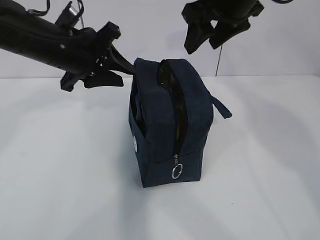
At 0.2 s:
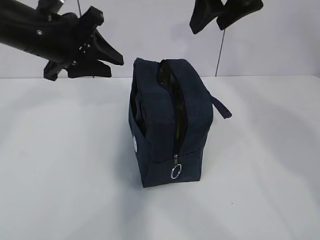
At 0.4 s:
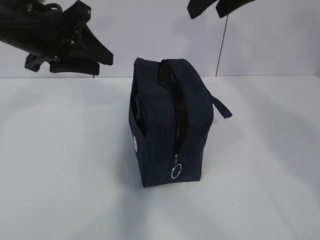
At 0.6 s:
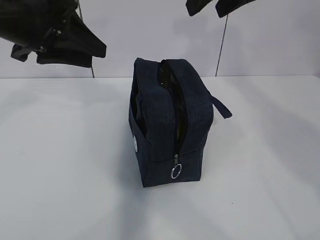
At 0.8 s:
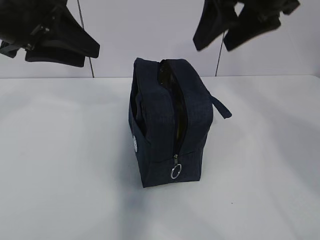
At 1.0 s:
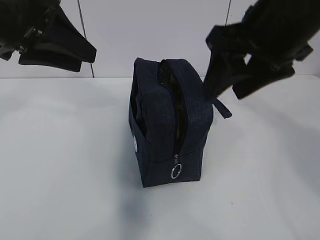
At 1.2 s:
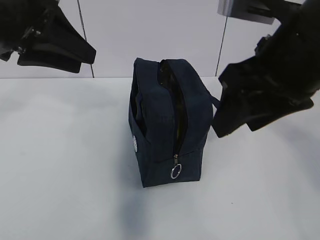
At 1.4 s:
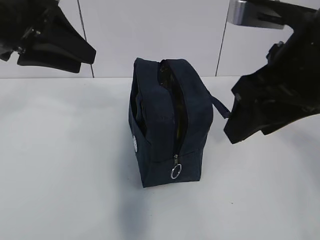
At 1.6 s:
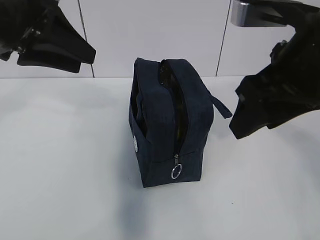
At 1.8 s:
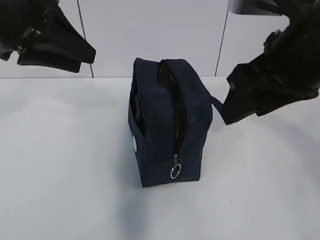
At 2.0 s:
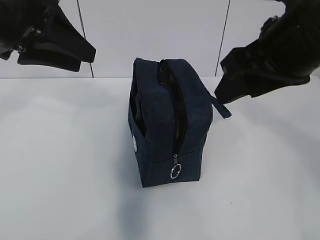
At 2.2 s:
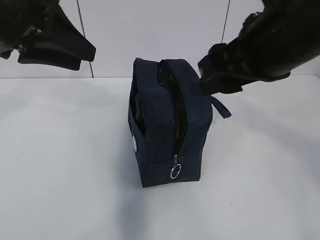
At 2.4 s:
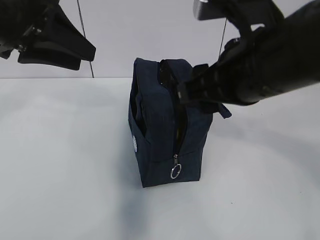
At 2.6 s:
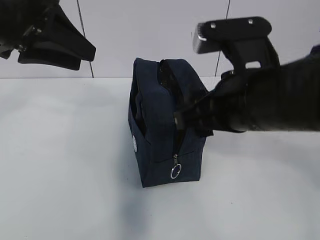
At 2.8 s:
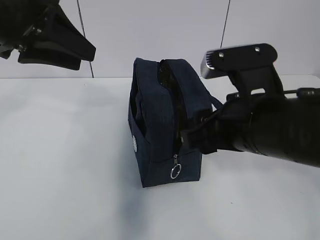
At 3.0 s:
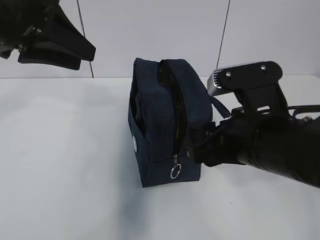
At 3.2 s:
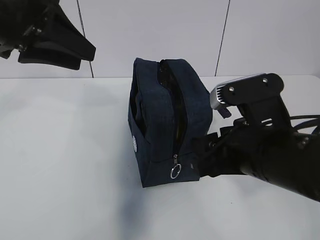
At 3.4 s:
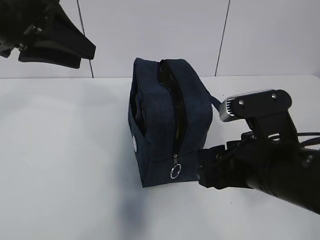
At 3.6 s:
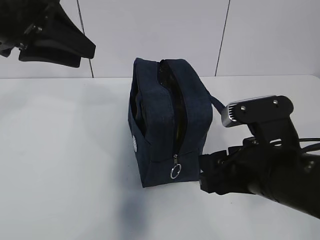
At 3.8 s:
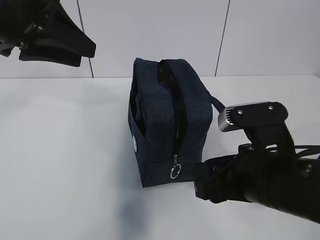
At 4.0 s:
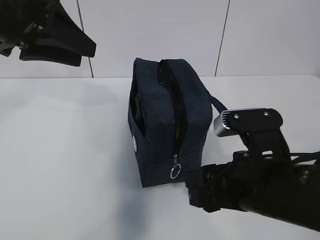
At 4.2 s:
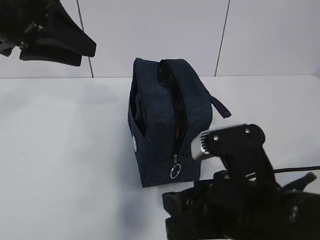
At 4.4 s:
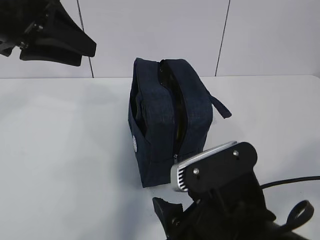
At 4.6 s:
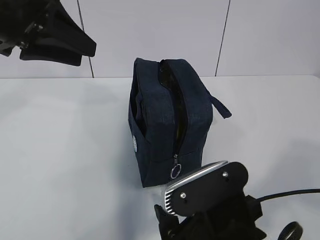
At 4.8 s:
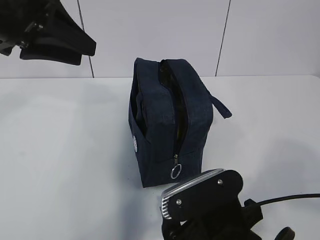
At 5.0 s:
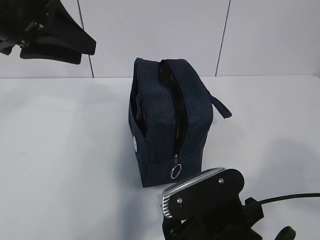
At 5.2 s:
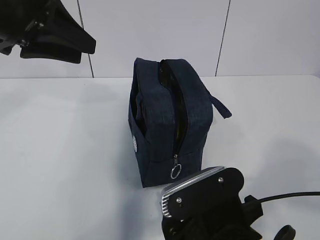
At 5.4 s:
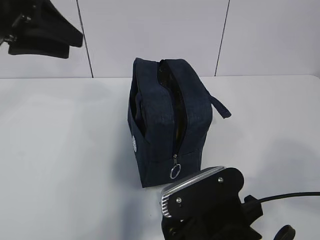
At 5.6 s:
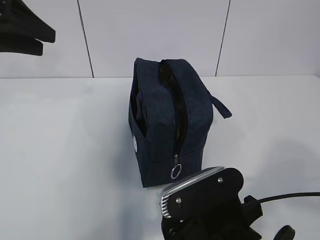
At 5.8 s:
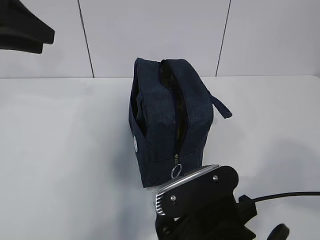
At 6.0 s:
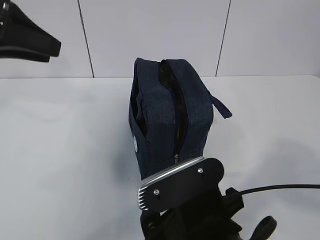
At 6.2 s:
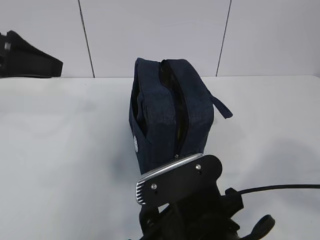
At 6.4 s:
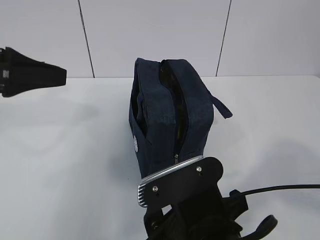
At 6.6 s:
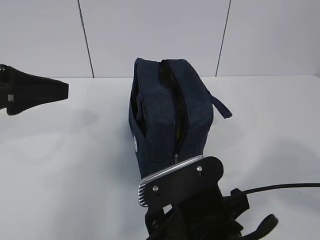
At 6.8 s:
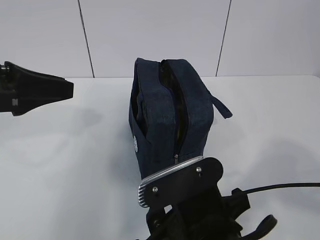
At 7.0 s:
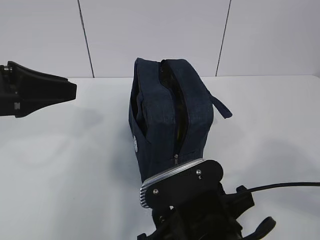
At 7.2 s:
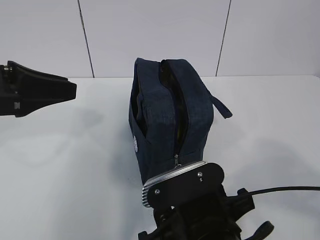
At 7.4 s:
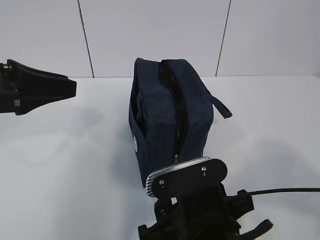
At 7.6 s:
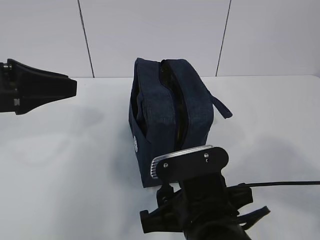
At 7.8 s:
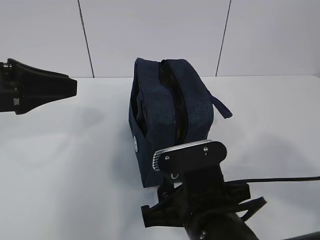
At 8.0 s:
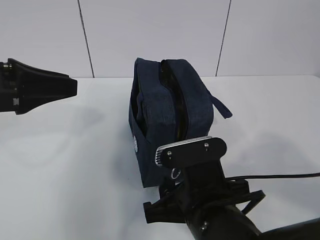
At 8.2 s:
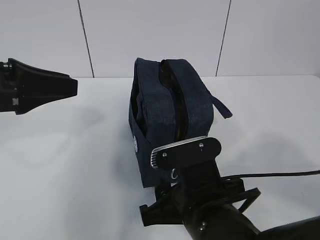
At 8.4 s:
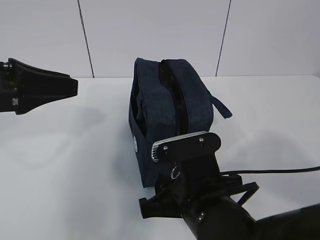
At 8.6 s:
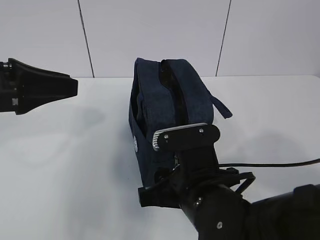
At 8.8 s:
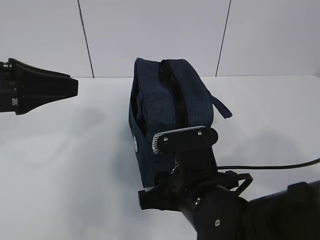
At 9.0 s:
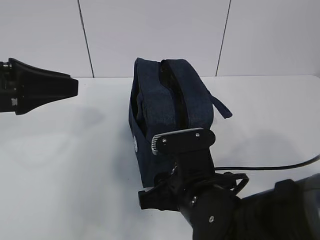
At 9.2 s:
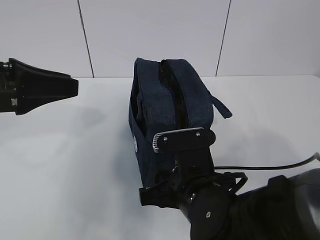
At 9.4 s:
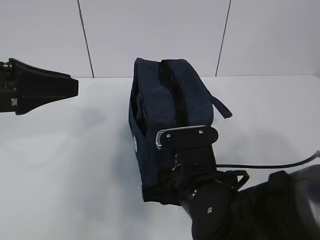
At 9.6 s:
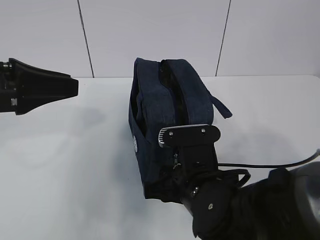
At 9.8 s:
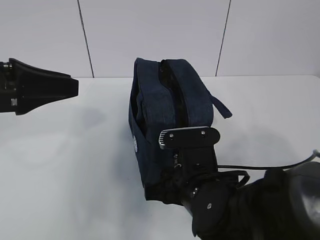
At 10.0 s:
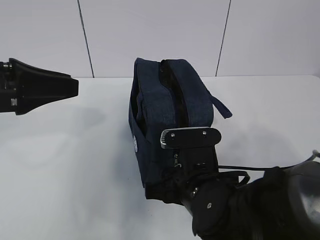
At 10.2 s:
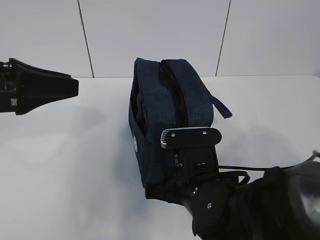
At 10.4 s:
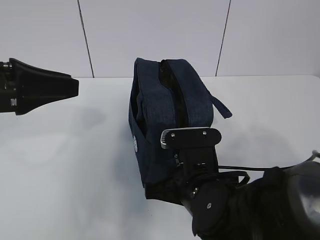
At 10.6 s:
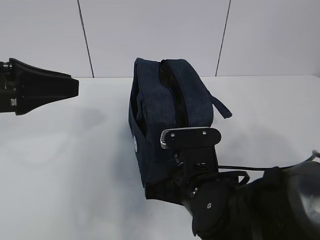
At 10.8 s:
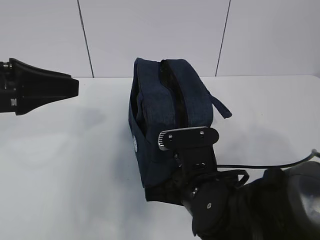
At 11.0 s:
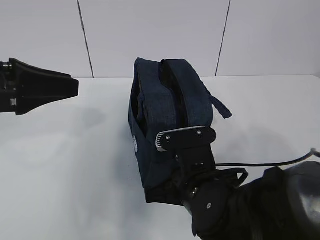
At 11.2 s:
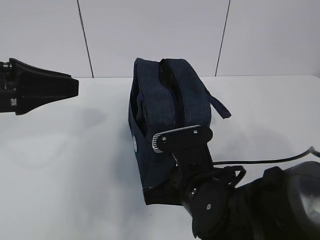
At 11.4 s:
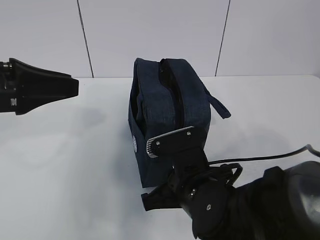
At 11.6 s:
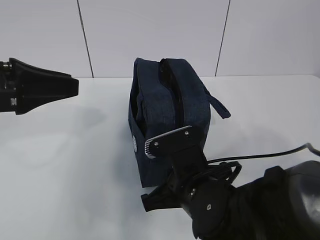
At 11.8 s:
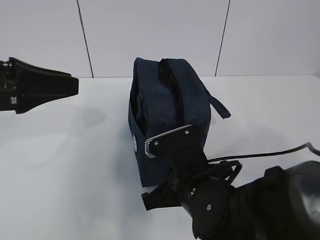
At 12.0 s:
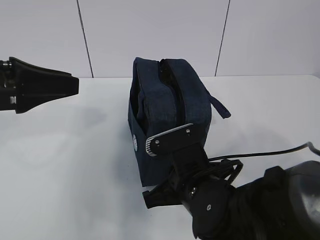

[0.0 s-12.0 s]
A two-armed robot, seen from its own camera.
0.0 to 1.6 s: The left gripper shifts about 10 cm upward and backward; the right gripper moves backward, some 15 cm.
1.6 to 3.0 s: The right gripper moves downward, roughly 10 cm.
3.0 to 4.4 s: The right gripper goes roughly 10 cm backward.
4.4 to 6.0 s: The left gripper heads to the left, covering roughly 5 cm.
6.0 to 7.6 s: The left gripper travels downward and backward by approximately 10 cm.
7.6 to 9.0 s: The right gripper moves about 5 cm.
9.0 to 10.4 s: The grippers make only small movements.
10.4 to 12.0 s: The right gripper closes its fingers.

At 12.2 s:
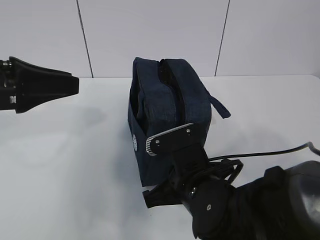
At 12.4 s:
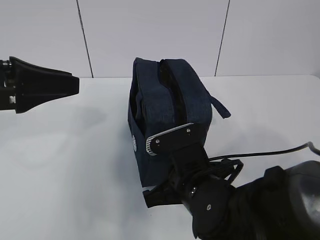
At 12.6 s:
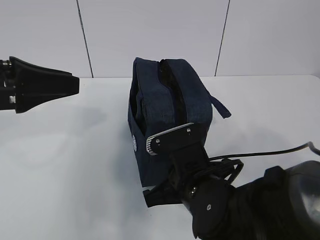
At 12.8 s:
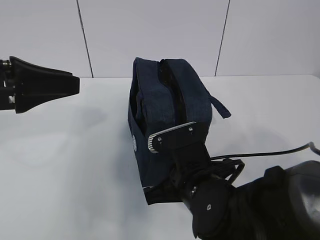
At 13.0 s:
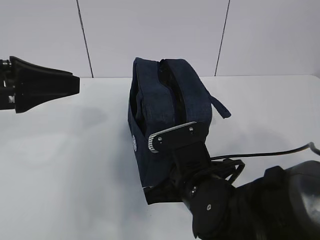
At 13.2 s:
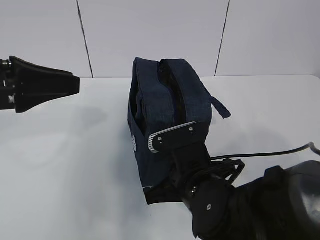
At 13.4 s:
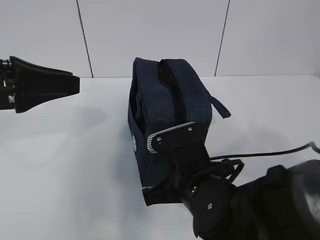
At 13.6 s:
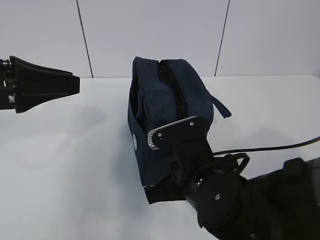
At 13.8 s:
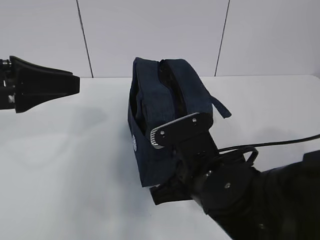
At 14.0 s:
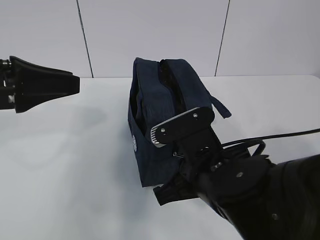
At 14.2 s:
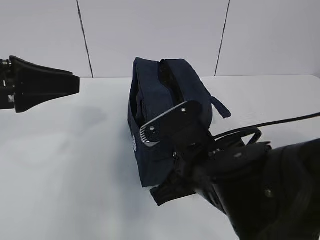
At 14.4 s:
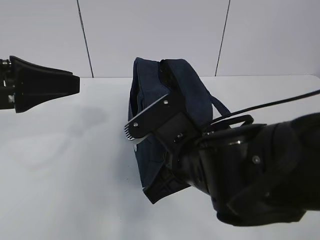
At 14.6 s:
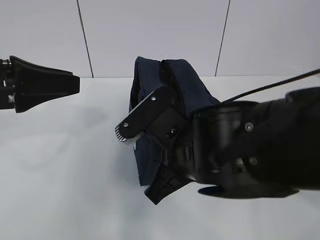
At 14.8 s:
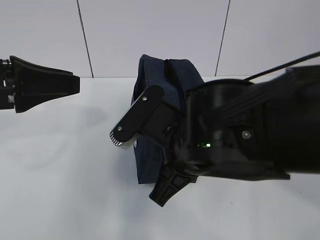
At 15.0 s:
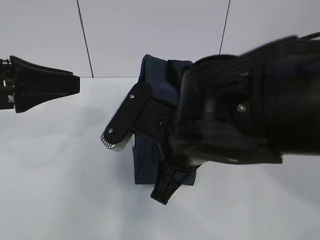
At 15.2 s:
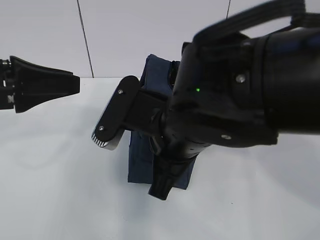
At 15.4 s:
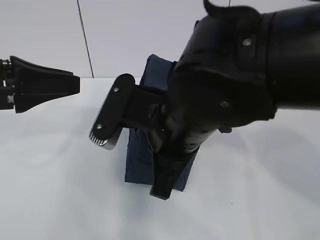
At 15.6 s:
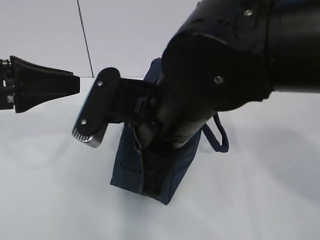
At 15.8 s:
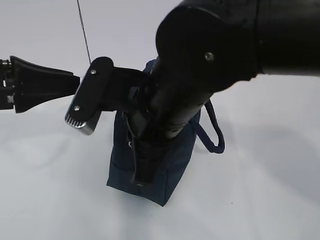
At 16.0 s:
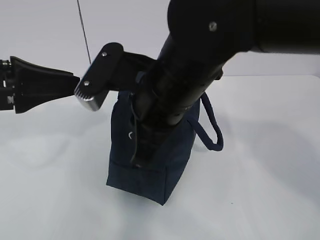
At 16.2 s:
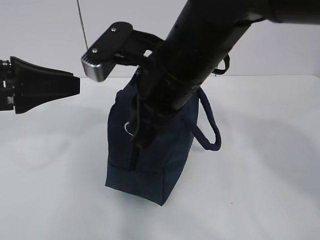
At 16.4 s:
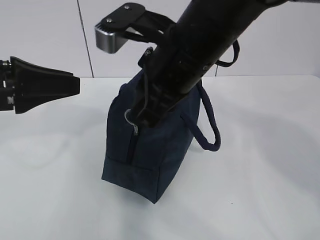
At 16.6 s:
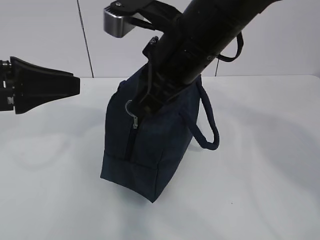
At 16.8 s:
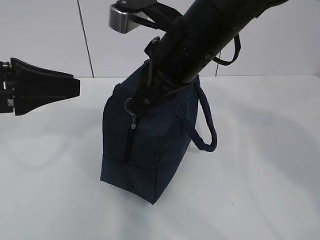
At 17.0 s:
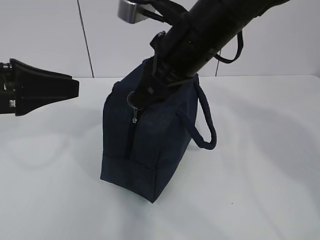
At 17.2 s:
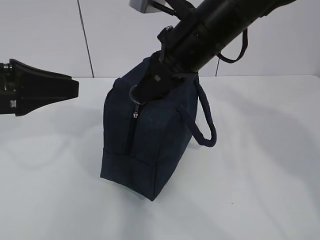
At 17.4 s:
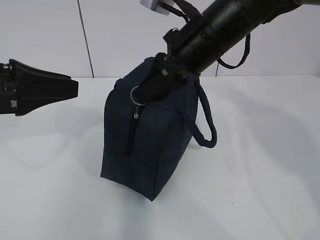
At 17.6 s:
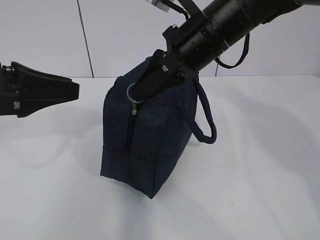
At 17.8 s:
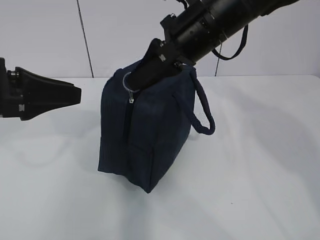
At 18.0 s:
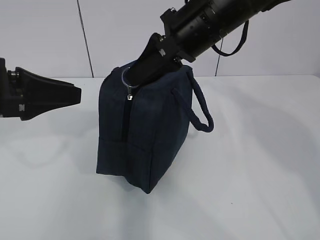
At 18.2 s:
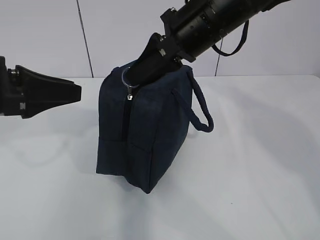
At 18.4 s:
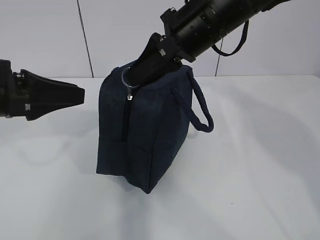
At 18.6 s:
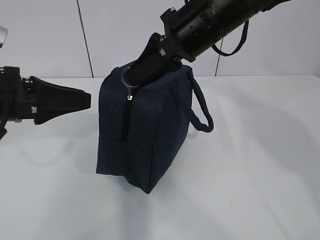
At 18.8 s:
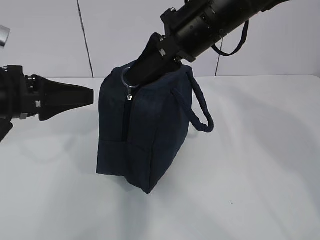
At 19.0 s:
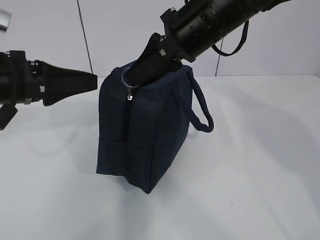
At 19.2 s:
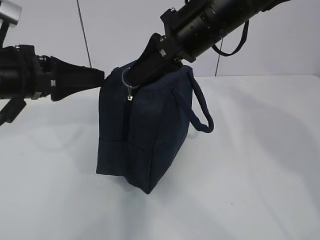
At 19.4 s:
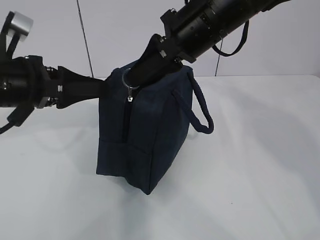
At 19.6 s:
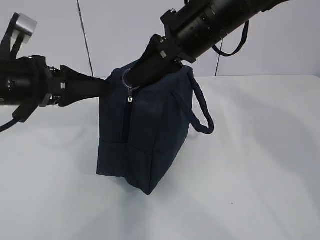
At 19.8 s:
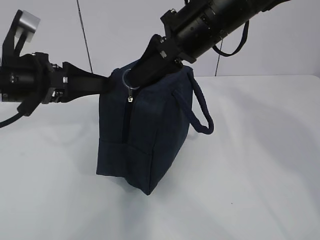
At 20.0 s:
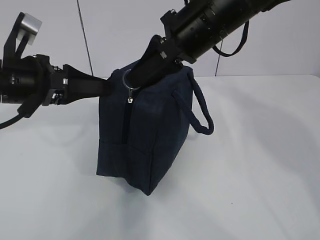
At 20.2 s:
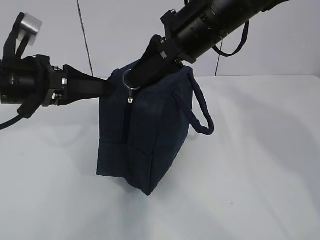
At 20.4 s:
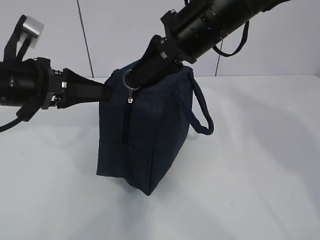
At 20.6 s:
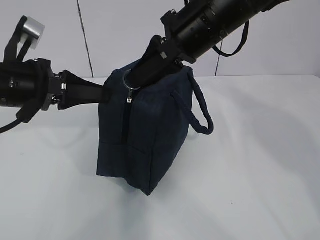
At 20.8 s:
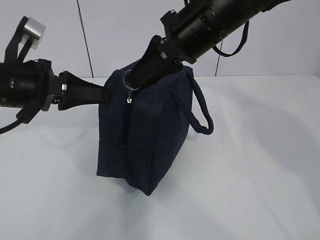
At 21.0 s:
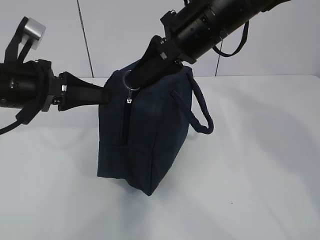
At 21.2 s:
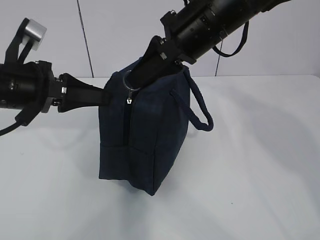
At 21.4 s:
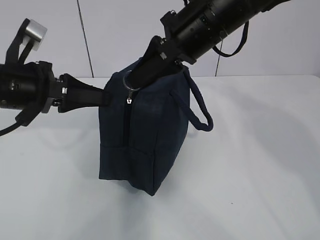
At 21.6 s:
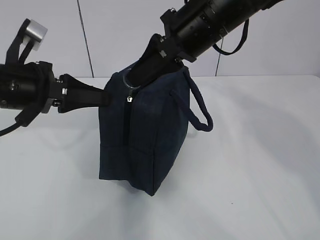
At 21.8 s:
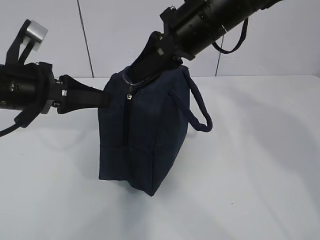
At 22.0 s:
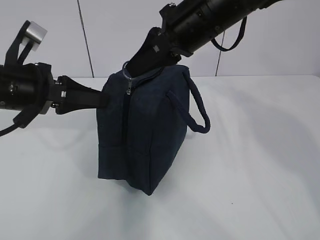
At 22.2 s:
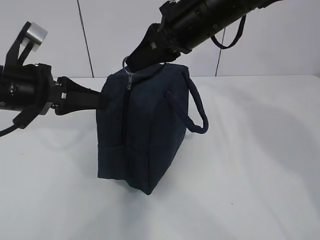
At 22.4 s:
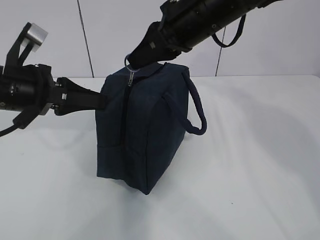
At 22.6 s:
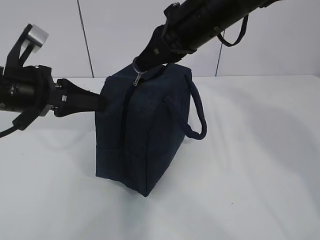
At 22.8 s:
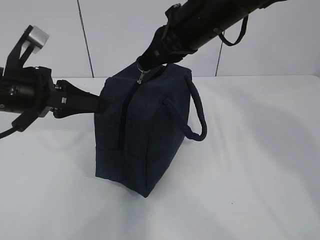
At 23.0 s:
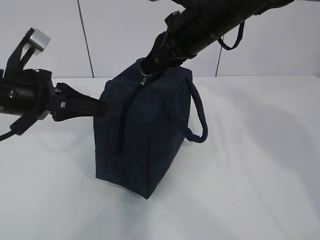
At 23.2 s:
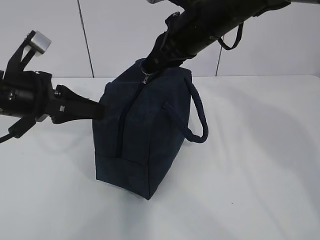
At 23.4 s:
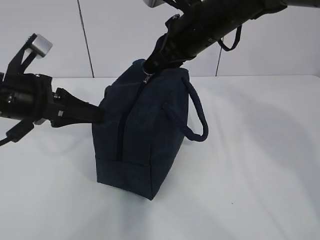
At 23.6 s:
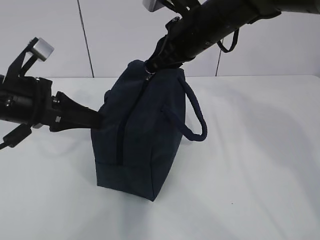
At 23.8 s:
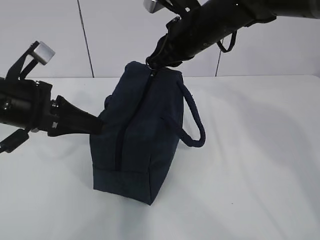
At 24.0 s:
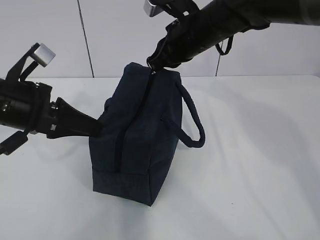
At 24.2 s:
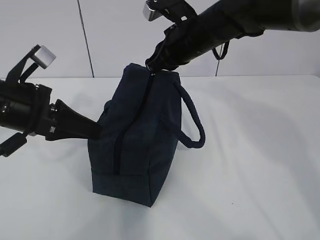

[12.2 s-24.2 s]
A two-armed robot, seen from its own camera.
12.2 to 13.8 s: The grippers move only a little.
13.8 to 15.2 s: The right gripper moves upward, roughly 10 cm.
15.2 to 16.6 s: The right gripper heads upward and forward, covering about 10 cm.
16.6 to 18.2 s: The right gripper ends up about 5 cm from where it was.
18.2 to 19.8 s: The left gripper is displaced forward by approximately 5 cm.
19.8 to 21.2 s: The left gripper closes up.
21.2 to 22.6 s: The grippers move only a little.
22.6 to 24.2 s: The right gripper travels forward and downward by roughly 10 cm.
